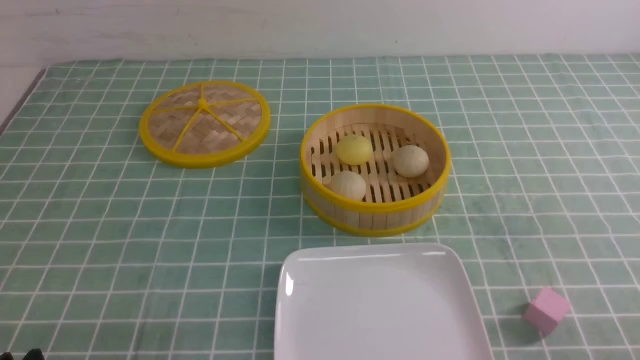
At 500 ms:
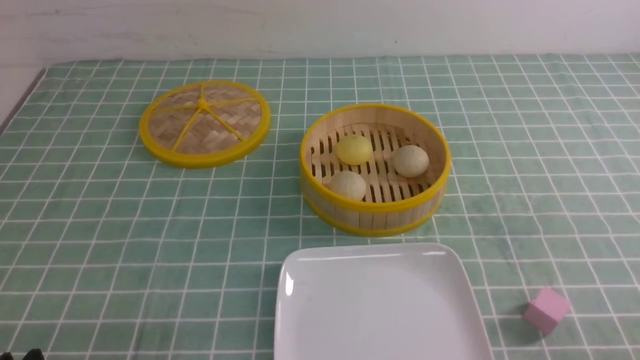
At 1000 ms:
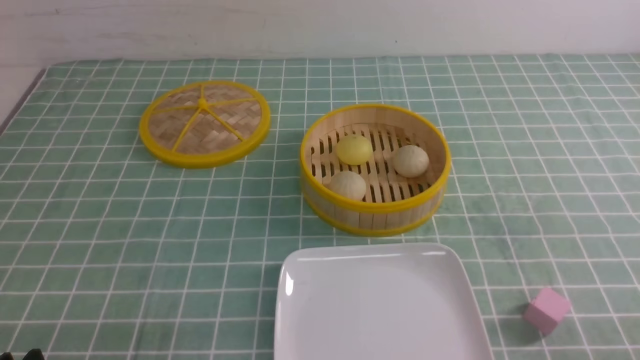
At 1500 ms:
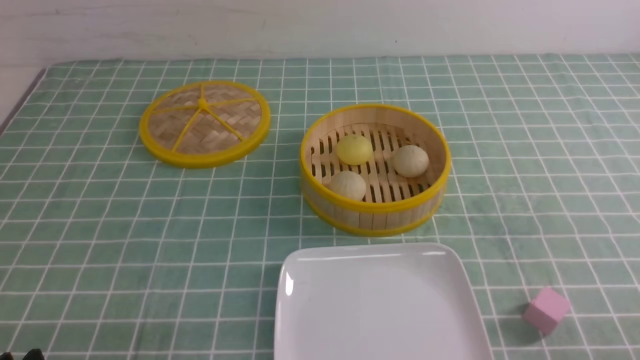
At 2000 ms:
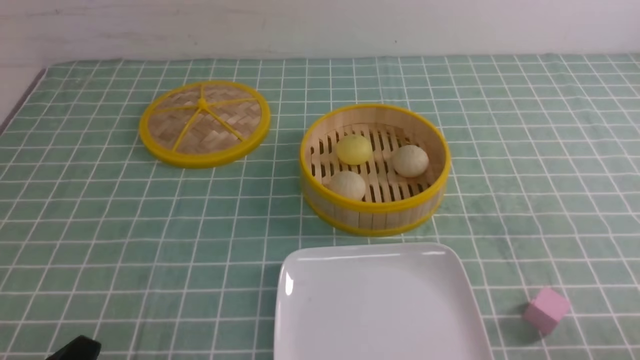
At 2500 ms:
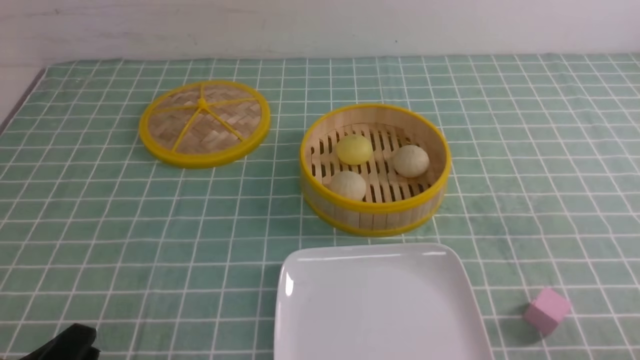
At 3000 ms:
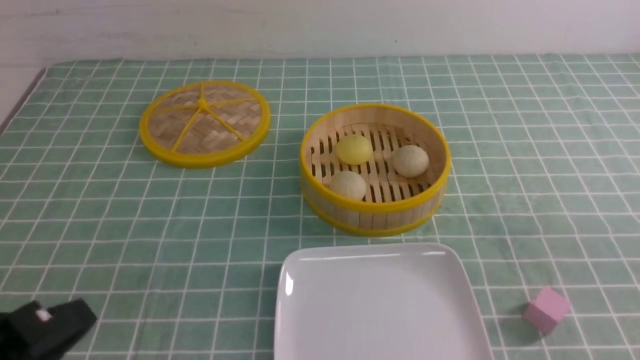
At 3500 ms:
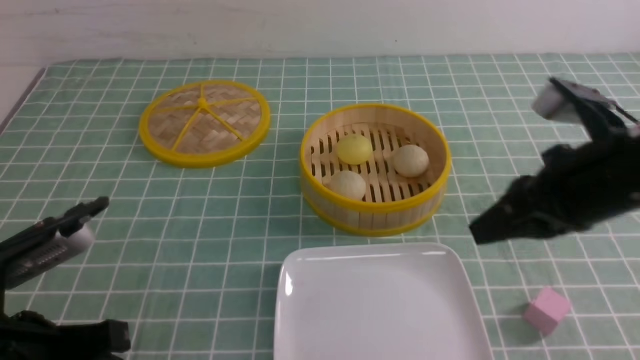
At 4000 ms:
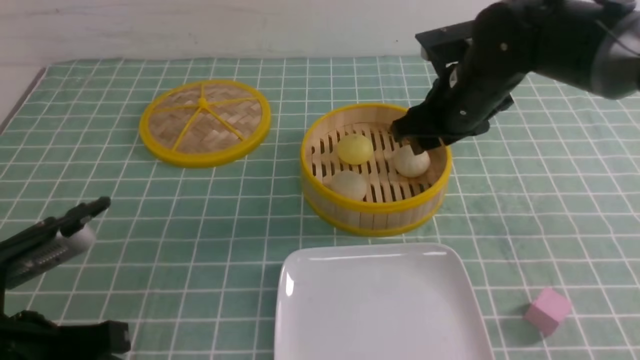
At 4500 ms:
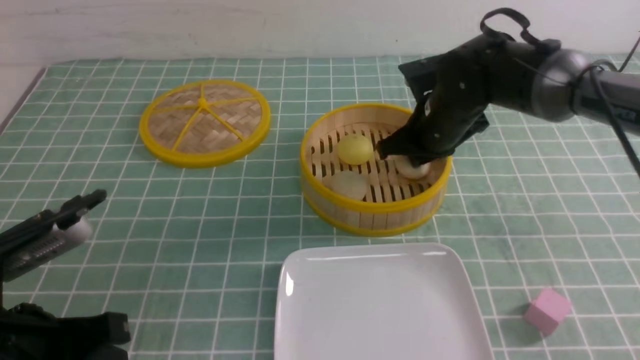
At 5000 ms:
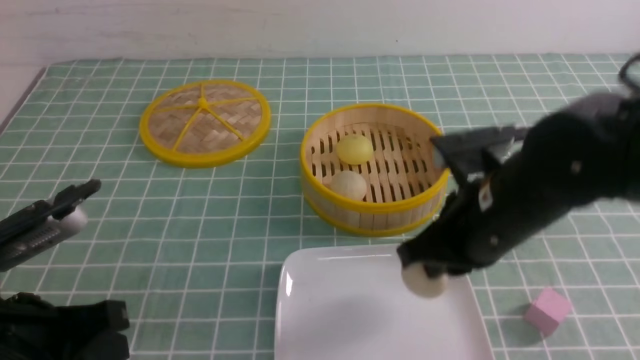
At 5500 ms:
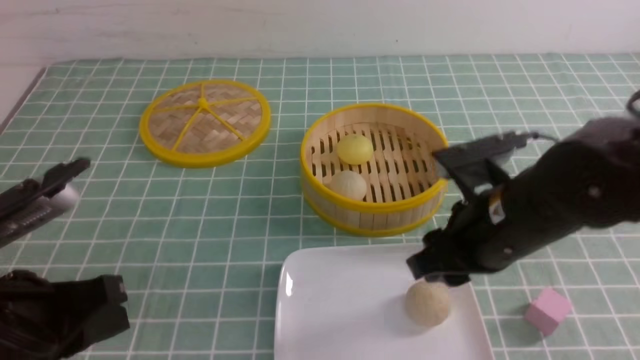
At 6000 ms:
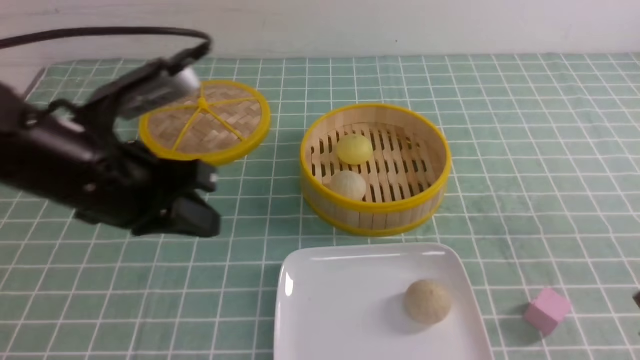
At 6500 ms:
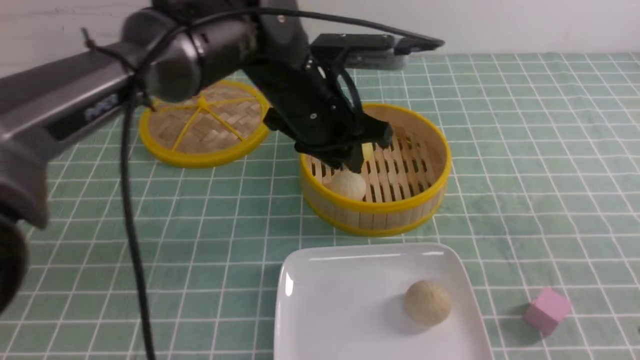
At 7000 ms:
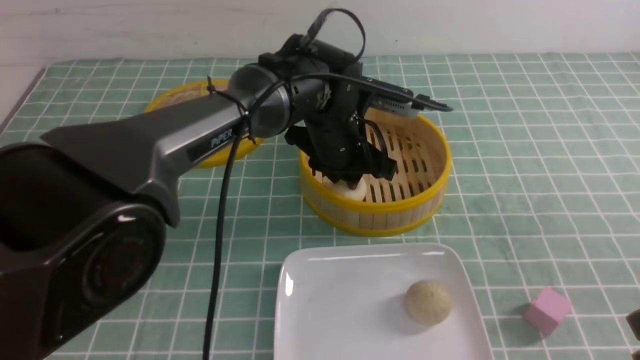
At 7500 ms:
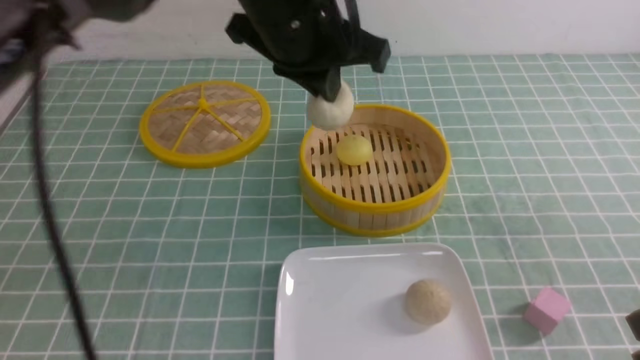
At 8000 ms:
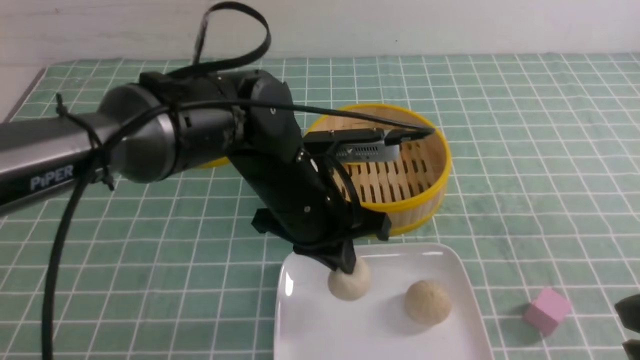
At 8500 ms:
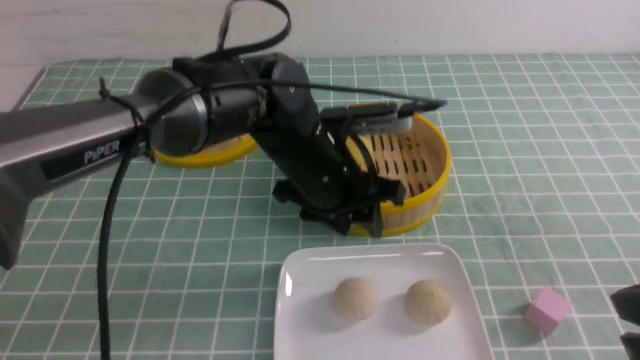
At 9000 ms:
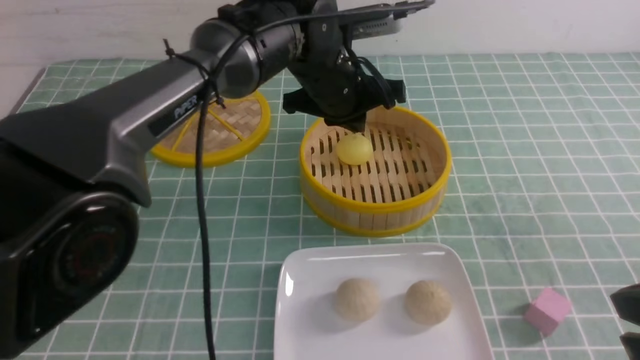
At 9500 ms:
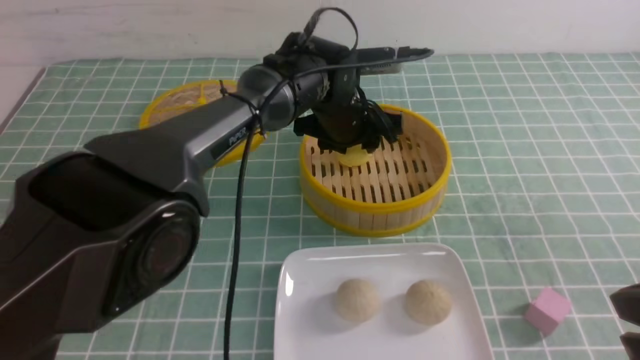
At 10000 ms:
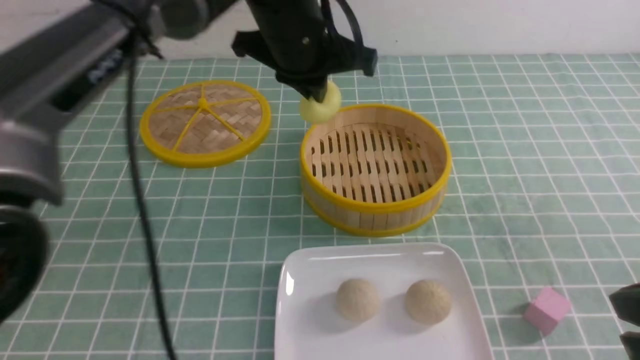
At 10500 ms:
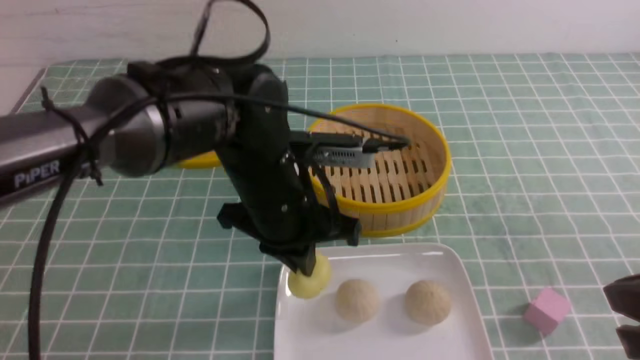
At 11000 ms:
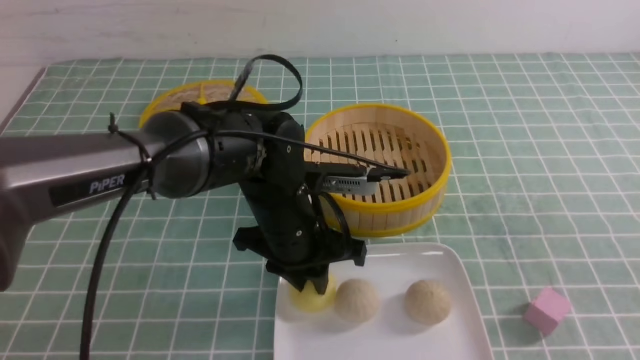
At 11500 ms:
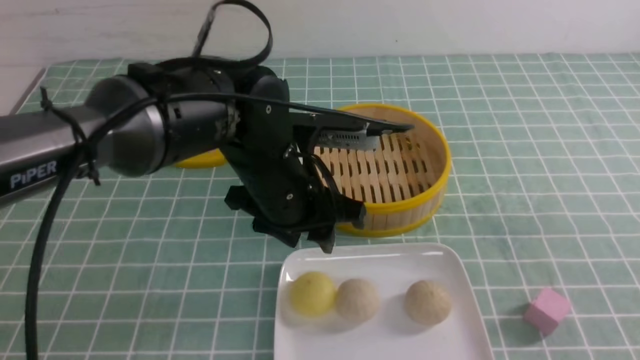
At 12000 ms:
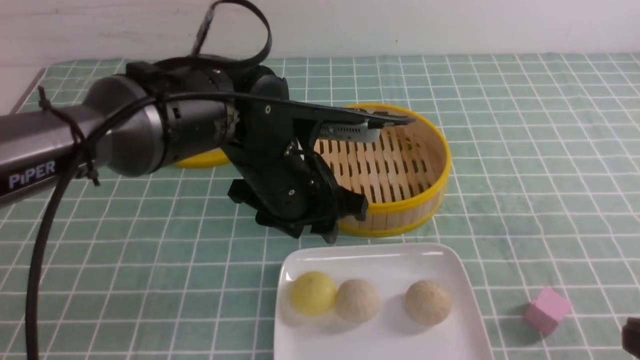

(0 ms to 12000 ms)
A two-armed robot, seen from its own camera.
Step, 0 ms - 4500 ms: use the right arm to grab the steamed stuffed bun that is closest to it.
Step, 5500 ms - 7000 ms: use the left arm to grab the steamed stuffed bun that is closest to it.
Step, 7500 ms - 8000 ms: use the left arm to put the steamed stuffed bun into the plate.
Step, 8500 ms - 9500 ms: use the left arm to grab the steamed stuffed bun that is closest to it.
Step, 10000 ms - 10500 ms: use the left arm to put the steamed stuffed bun into the plate.
2000 ms - 4000 ms: The left gripper shifts some 10 cm upward and forward, and closes. The right gripper goes about 40 cm forward and to the left, and closes, then opens again.
4000 ms - 6000 ms: The left gripper travels forward, to the right and upward by about 15 cm. The right gripper is displaced backward by some 25 cm, and closes up.
6000 ms - 8000 ms: The left gripper shifts about 15 cm to the right and downward, and opens and closes again.
8000 ms - 10000 ms: The left gripper is displaced upward and forward by about 15 cm, and opens and closes again.
10000 ms - 12000 ms: The left gripper is displaced downward and backward by some 10 cm, and opens its fingers. Meanwhile the right gripper moves backward, roughly 5 cm.

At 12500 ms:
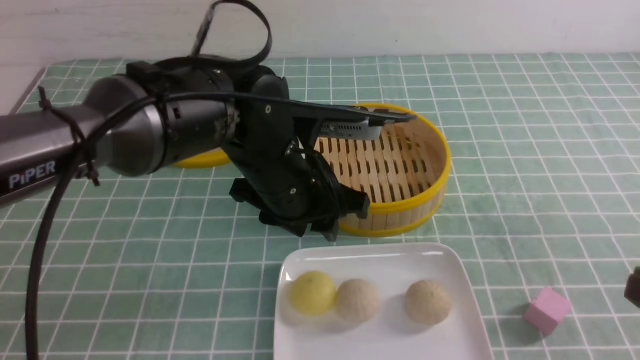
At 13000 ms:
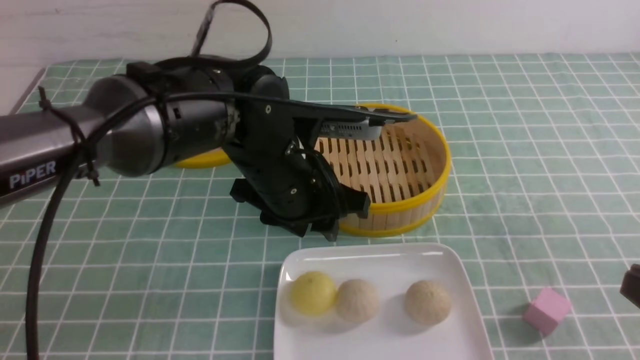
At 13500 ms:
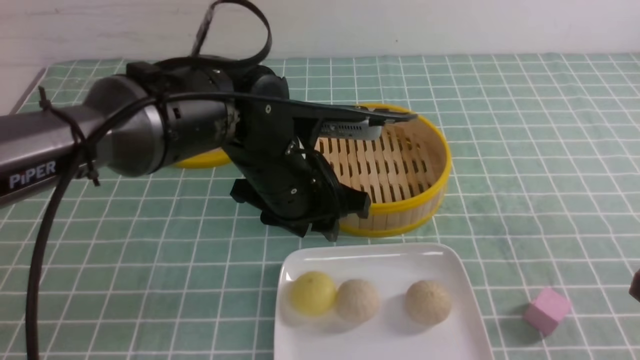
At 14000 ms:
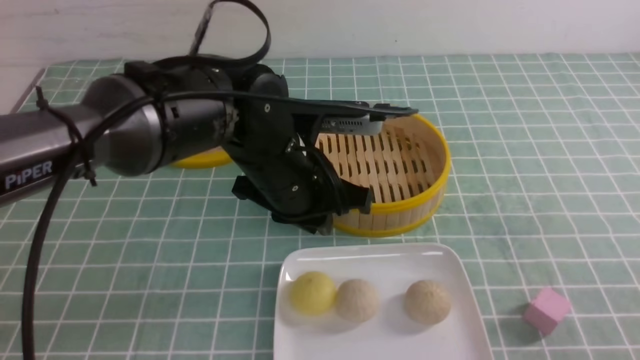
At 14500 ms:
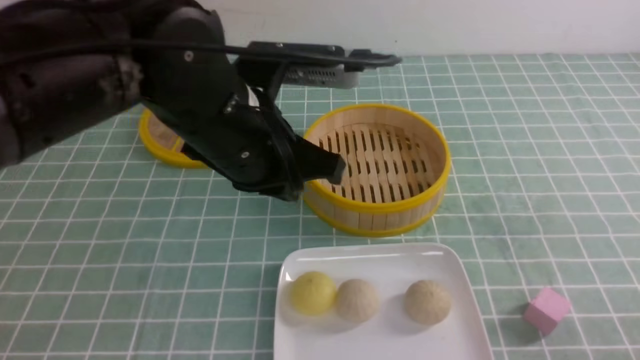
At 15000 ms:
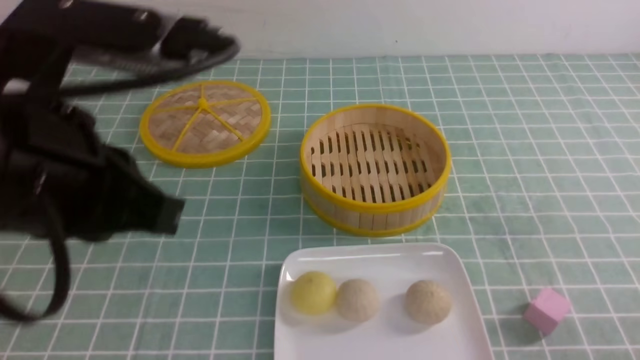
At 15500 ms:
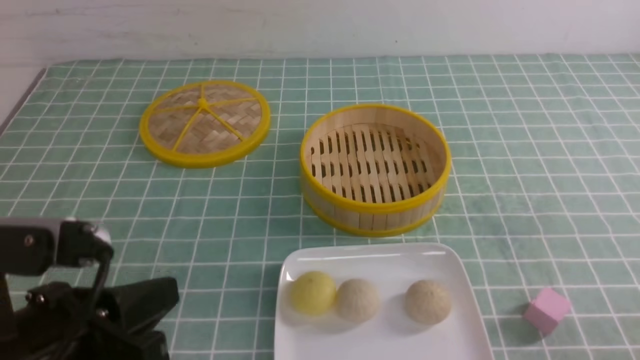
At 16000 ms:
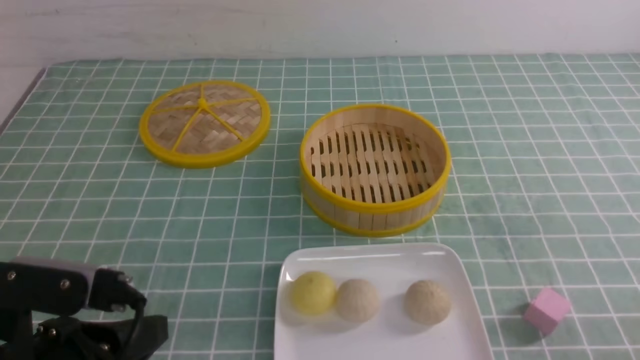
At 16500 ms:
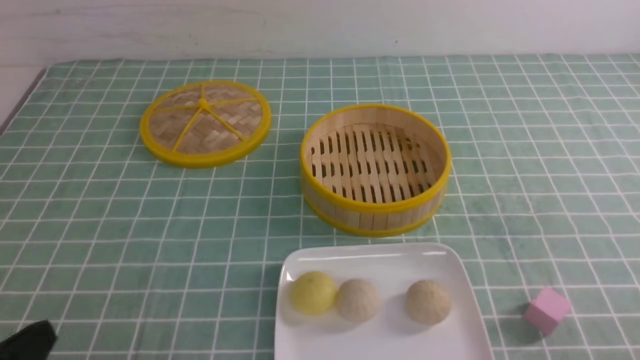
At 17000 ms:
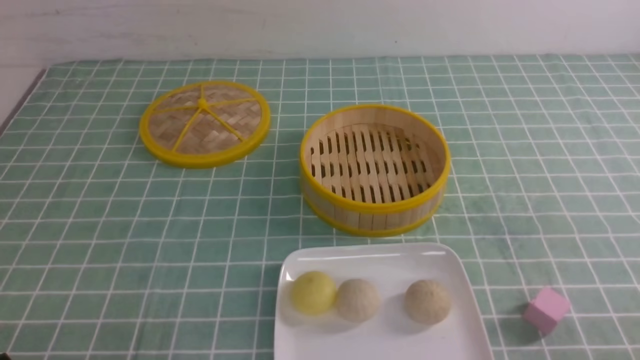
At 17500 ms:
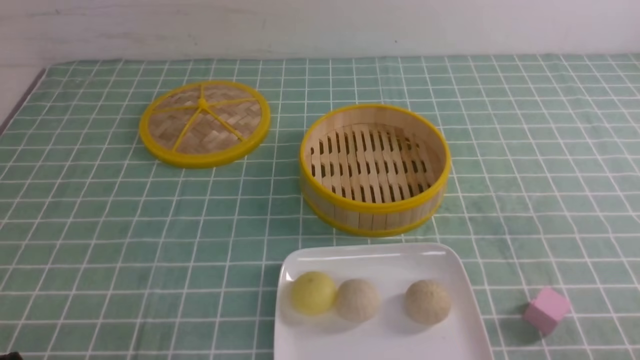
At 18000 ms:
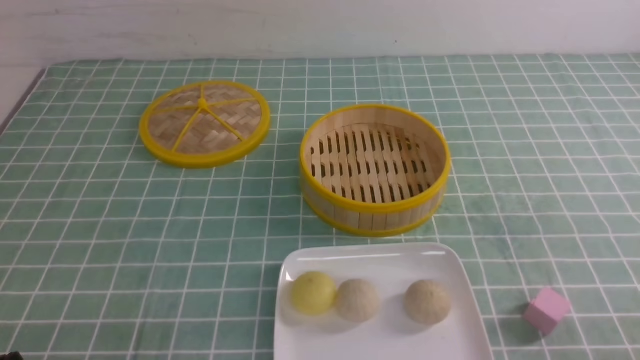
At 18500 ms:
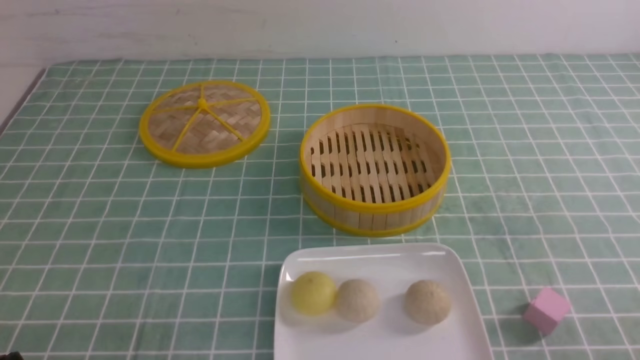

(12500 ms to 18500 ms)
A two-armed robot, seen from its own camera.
12500 ms - 14500 ms: The right gripper travels downward by roughly 10 cm. Meanwhile the left gripper is displaced upward by about 10 cm, and closes up.
14500 ms - 16500 ms: The left gripper travels backward, to the left and downward by approximately 30 cm.
